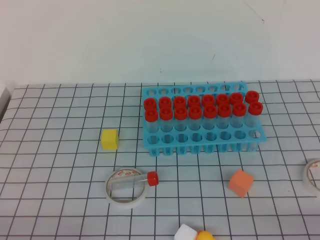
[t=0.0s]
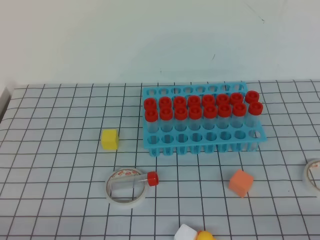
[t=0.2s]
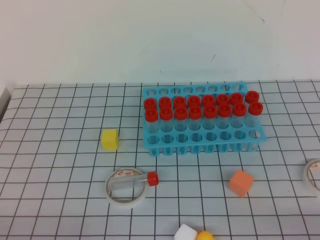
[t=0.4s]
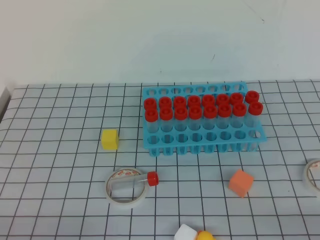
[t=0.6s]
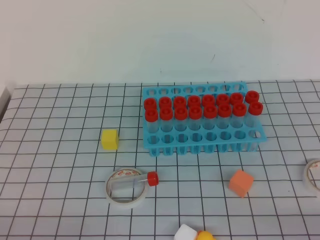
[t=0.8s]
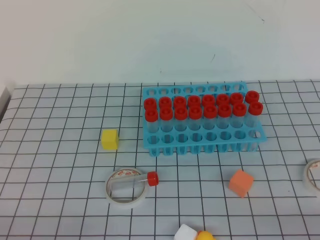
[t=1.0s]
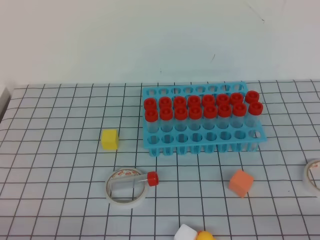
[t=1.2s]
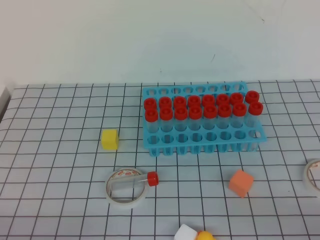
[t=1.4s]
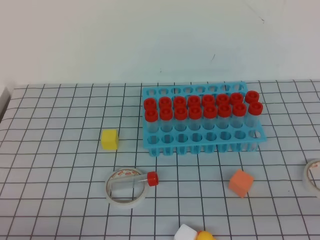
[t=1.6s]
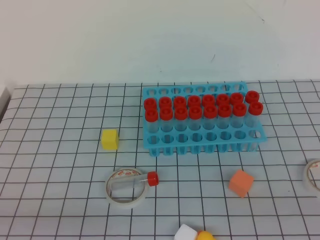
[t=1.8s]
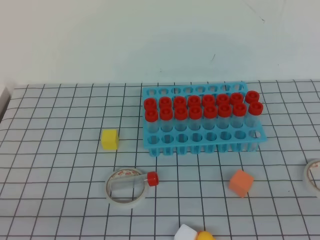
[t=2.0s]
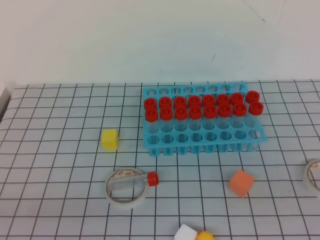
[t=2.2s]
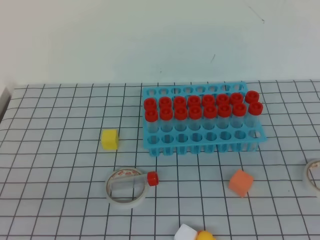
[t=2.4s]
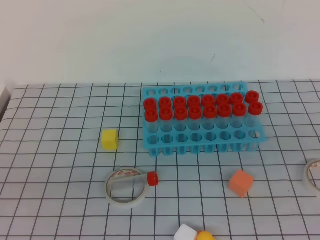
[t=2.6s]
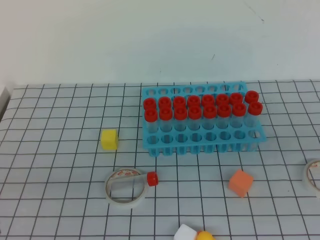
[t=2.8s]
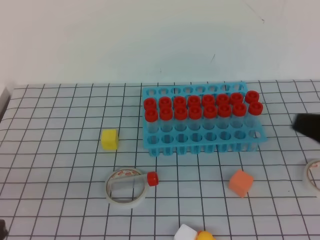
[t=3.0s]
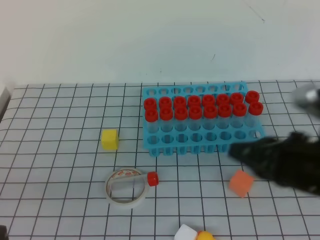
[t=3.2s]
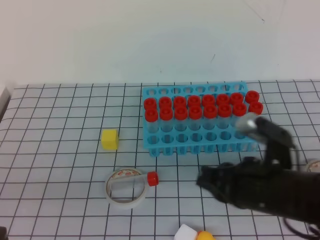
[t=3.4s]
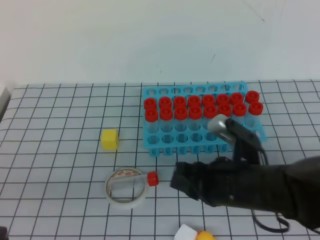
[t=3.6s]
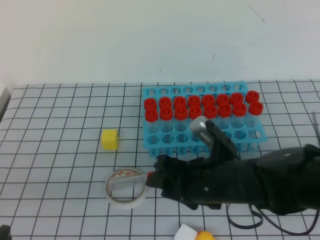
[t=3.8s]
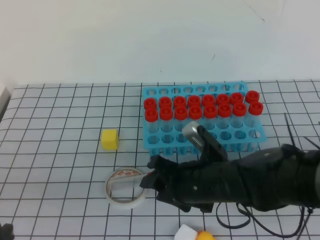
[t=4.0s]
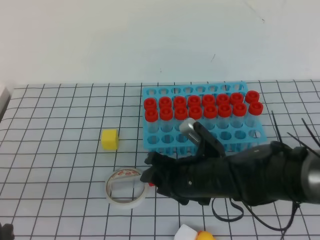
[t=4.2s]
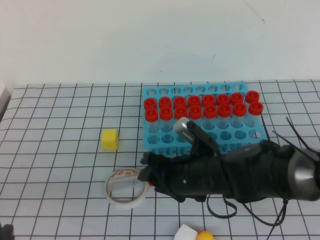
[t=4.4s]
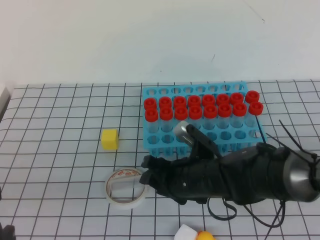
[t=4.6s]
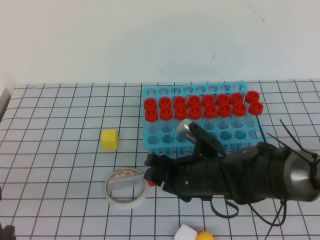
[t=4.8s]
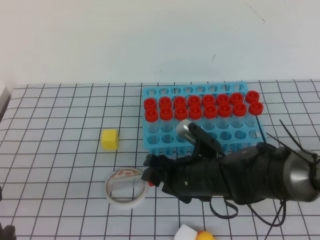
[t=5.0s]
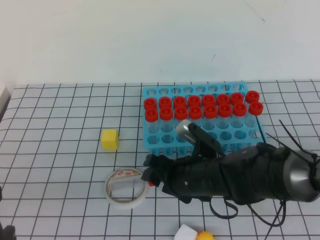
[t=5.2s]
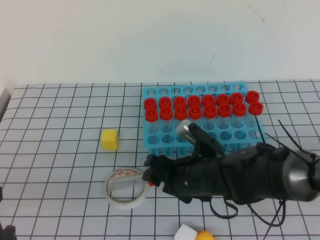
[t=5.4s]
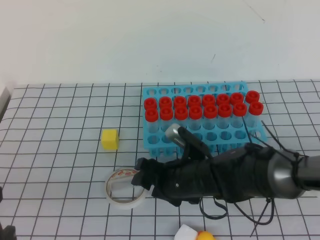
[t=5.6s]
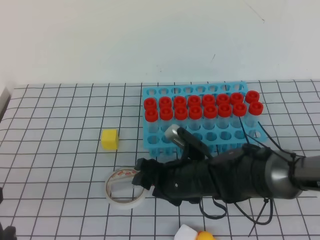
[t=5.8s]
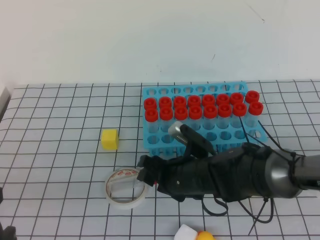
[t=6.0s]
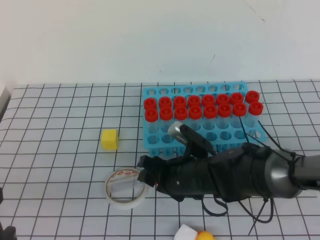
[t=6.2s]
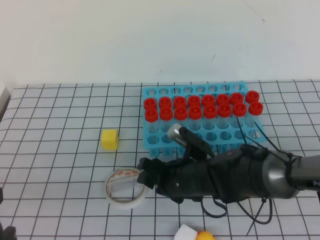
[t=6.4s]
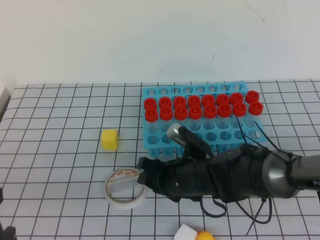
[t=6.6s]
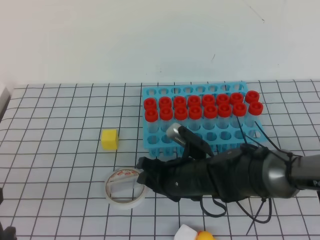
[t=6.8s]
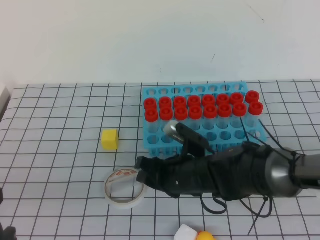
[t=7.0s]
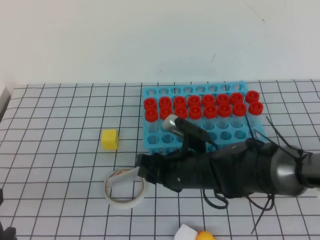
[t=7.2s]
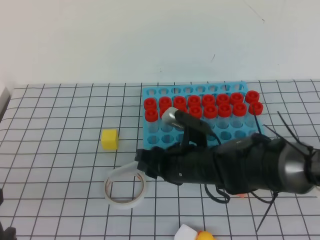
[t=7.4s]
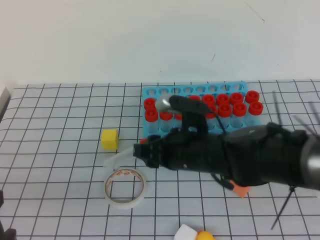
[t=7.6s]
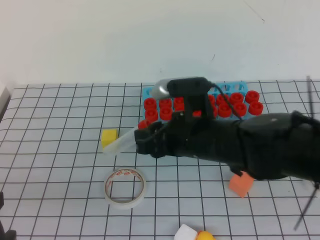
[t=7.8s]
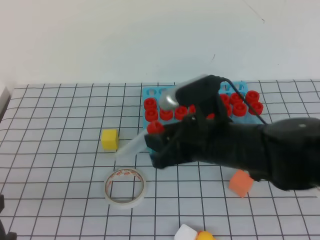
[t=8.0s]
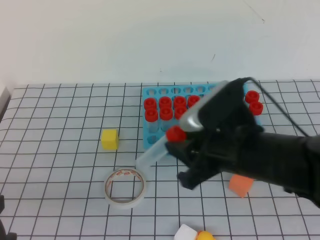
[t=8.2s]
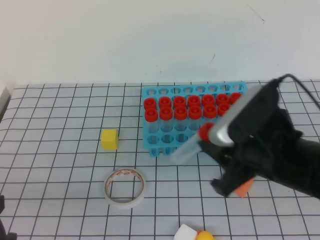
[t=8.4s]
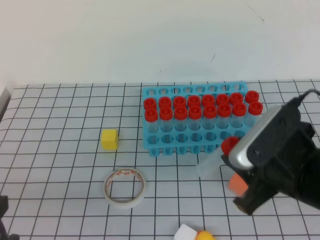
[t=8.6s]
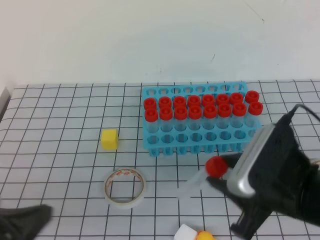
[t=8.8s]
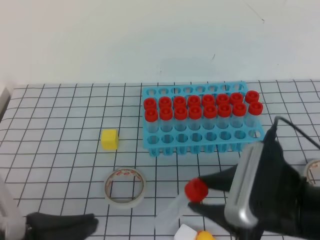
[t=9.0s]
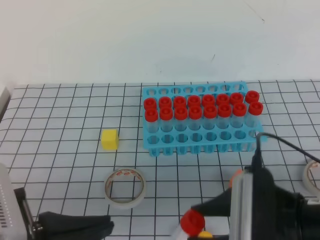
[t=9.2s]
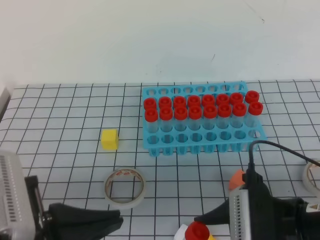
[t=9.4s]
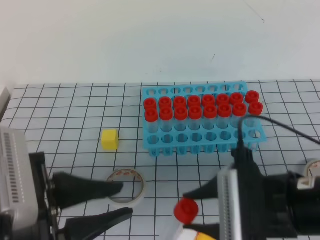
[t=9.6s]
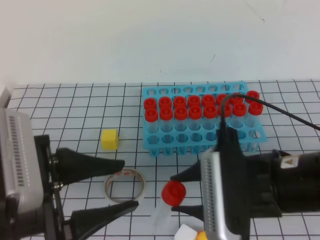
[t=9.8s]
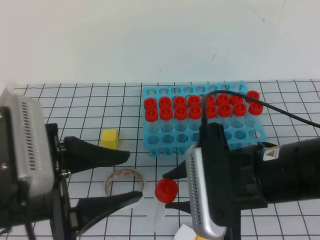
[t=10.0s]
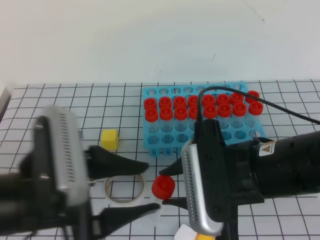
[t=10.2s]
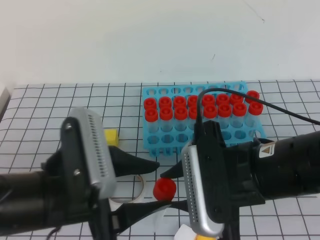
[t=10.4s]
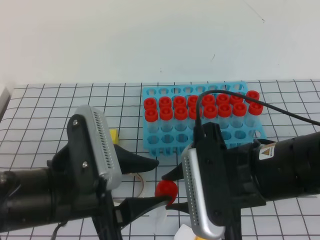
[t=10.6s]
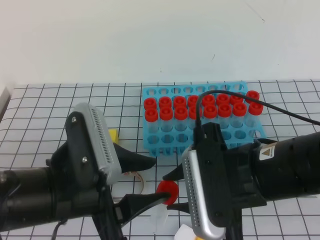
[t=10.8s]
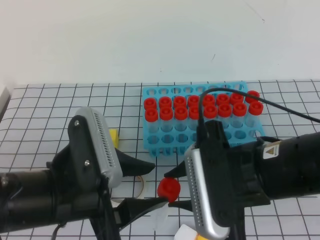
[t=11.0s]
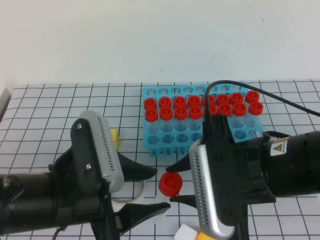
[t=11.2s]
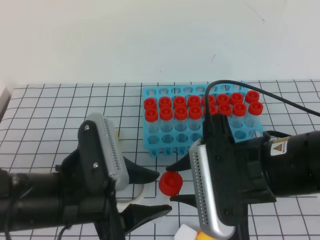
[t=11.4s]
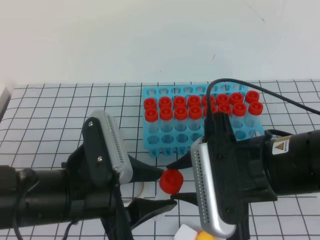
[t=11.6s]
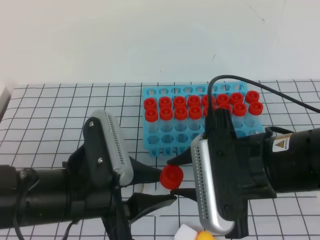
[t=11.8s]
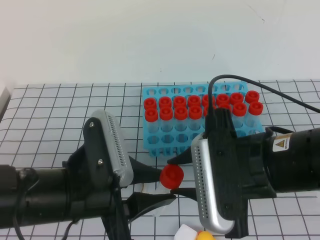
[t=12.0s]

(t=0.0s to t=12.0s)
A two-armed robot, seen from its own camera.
t=1.6s - t=3.0s: The right gripper shifts approximately 20 cm forward, upward and to the left.
t=3.0s - t=4.4s: The right gripper travels to the left, downward and forward by approximately 25 cm, and opens its fingers.
t=4.4s - t=6.0s: The grippers stay close to where they were, moving slightly.
t=6.0s - t=7.6s: The right gripper goes some 5 cm upward.
t=7.6s - t=9.0s: The right gripper travels backward, to the right and upward by roughly 15 cm.
t=9.0s - t=10.4s: The left gripper moves to the right and forward, roughly 10 cm, and opens; the right gripper ends up roughly 5 cm from where it was.

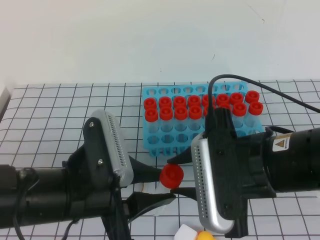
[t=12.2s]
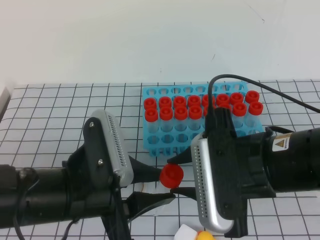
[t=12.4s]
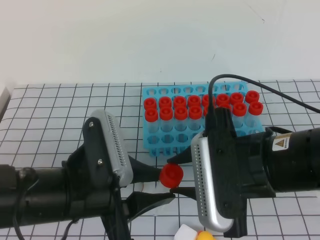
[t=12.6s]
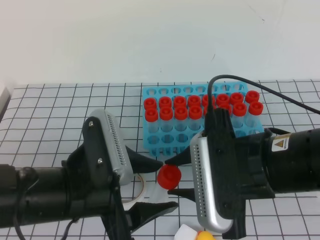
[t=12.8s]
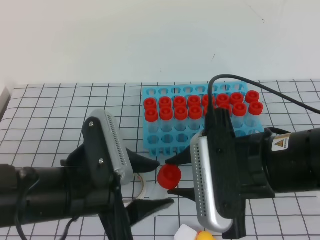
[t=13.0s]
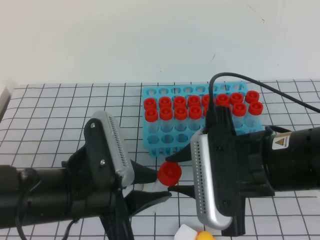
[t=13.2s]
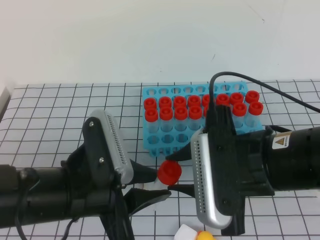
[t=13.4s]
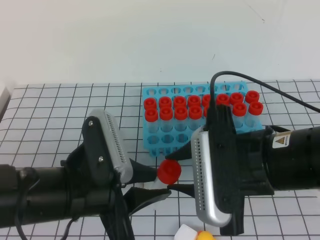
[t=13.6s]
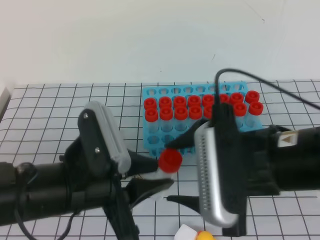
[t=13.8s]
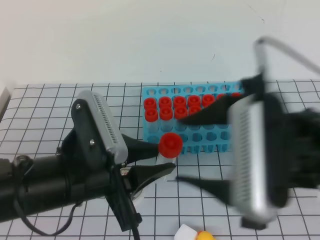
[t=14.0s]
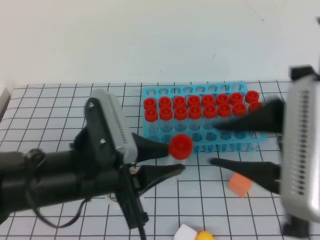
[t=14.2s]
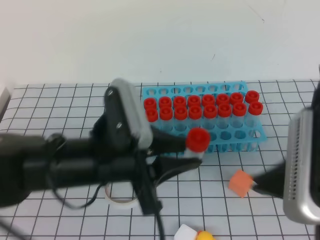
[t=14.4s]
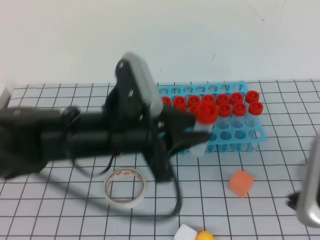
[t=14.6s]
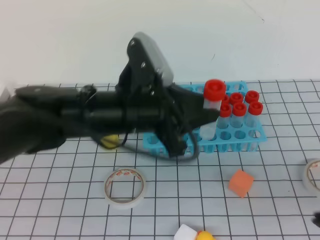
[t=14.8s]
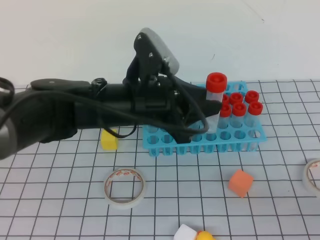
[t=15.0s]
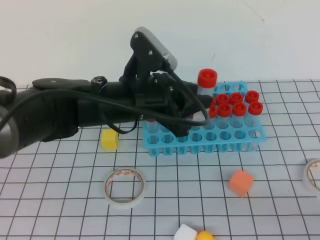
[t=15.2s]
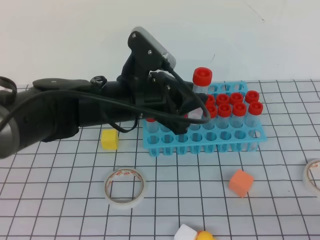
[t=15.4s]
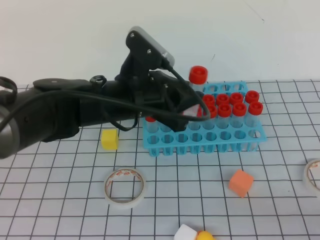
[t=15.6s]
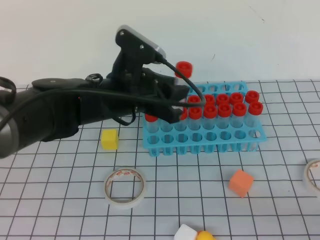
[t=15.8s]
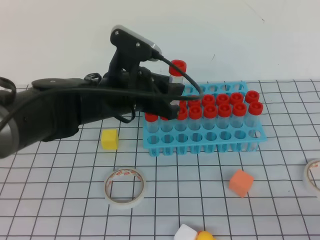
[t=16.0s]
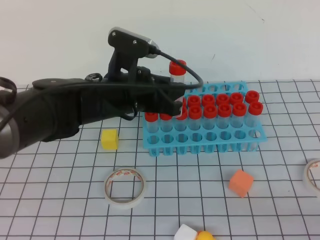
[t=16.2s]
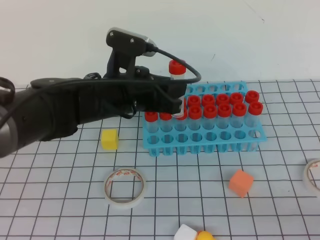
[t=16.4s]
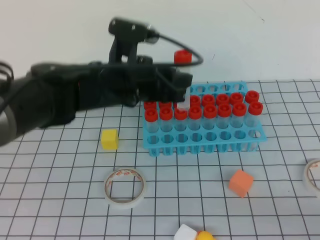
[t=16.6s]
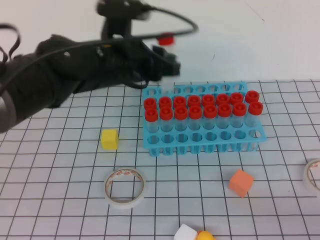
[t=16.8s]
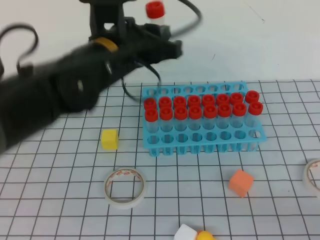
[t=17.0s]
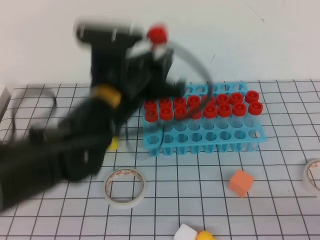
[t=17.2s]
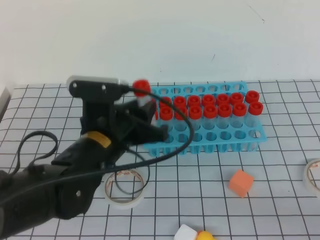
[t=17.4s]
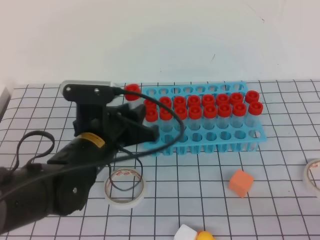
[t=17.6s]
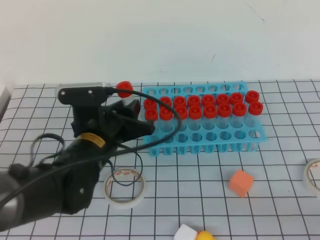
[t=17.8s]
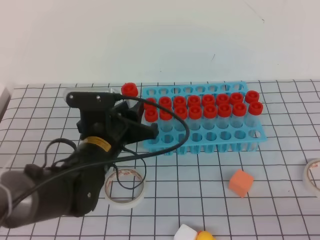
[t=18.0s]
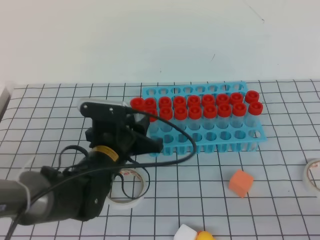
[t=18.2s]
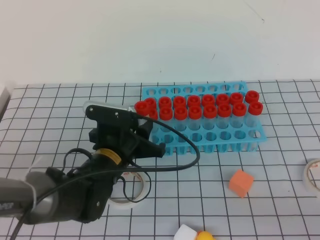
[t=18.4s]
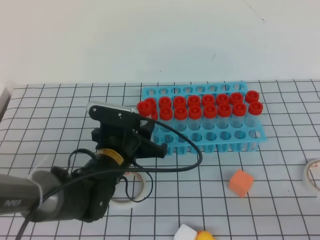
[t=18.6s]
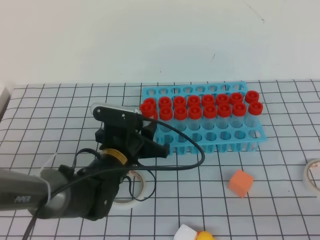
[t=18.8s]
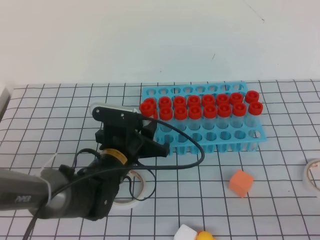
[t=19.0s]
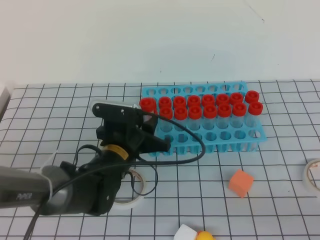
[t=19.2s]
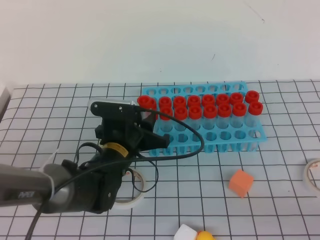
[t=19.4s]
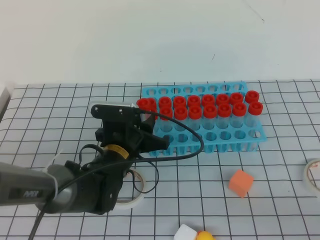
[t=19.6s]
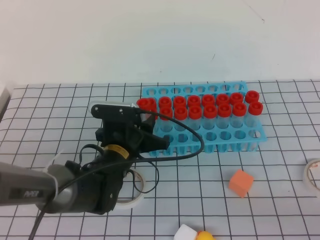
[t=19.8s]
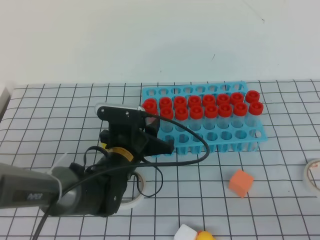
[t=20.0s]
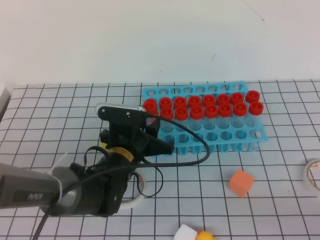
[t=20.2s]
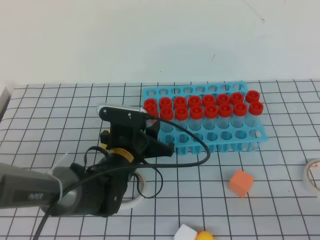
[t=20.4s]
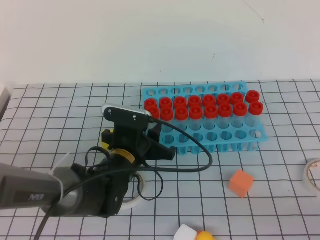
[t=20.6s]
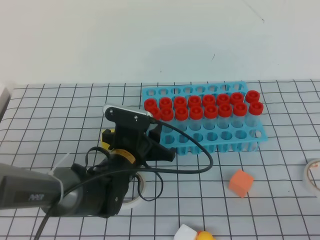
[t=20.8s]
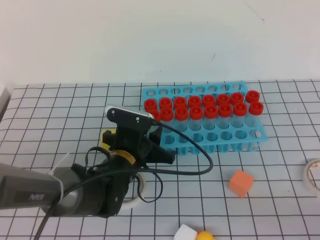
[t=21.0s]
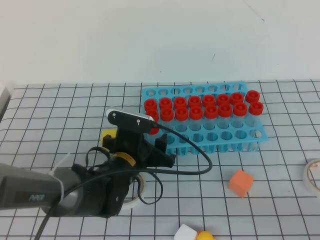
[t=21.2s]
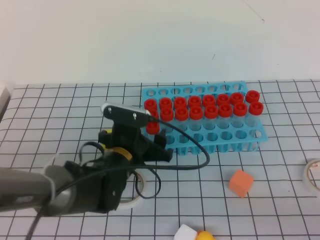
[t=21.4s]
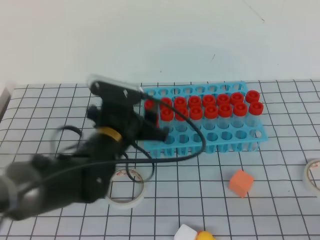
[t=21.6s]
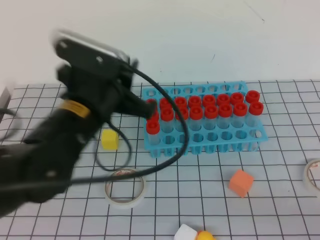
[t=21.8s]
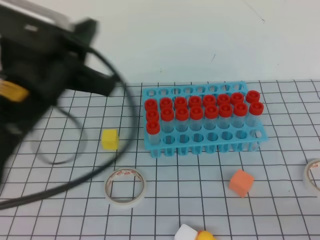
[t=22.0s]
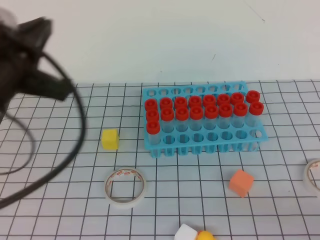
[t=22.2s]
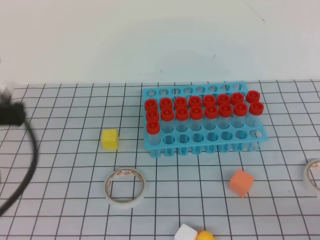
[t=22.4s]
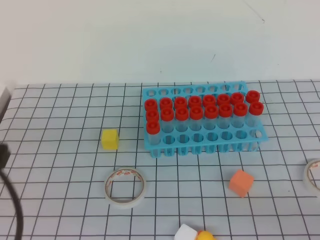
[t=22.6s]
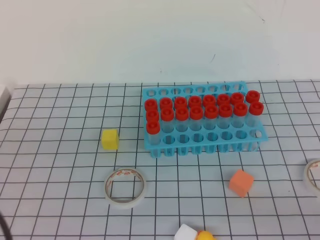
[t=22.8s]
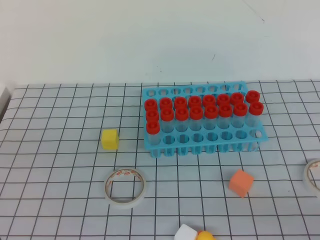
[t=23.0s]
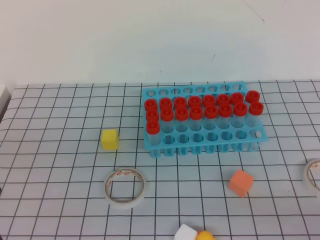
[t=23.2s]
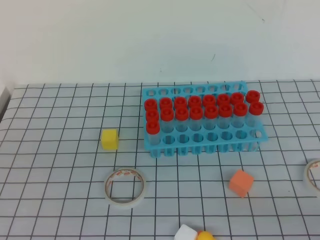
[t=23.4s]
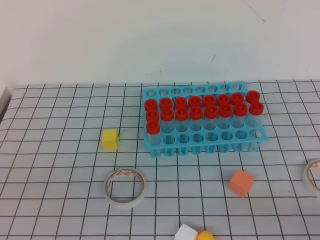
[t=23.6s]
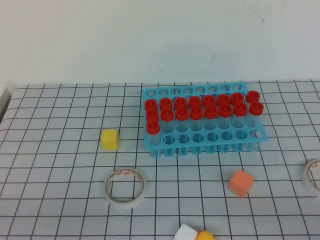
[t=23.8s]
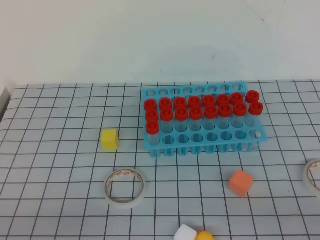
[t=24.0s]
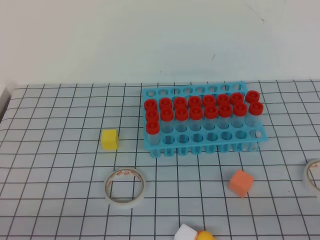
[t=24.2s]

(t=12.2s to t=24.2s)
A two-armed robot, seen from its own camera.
t=12.2s - t=13.8s: The left gripper opens and closes again.
t=13.8s - t=15.2s: The left gripper is displaced forward and to the right by some 15 cm; the right gripper heads to the right and backward, covering roughly 20 cm, and closes.
t=16.6s - t=18.2s: The left gripper heads downward, covering roughly 10 cm.
t=18.2s - t=19.8s: The grippers make only small movements.
t=19.8s - t=21.2s: The left gripper opens its fingers.
t=21.2s - t=22.6s: The left gripper shifts roughly 30 cm upward, to the left and backward, and closes up.
t=22.6s - t=24.2s: The left gripper moves downward and backward, some 15 cm.
